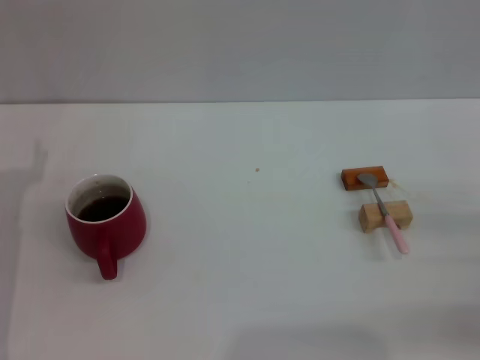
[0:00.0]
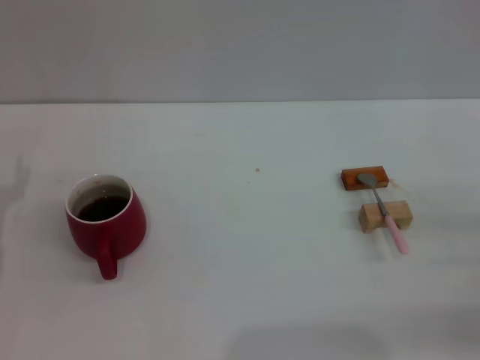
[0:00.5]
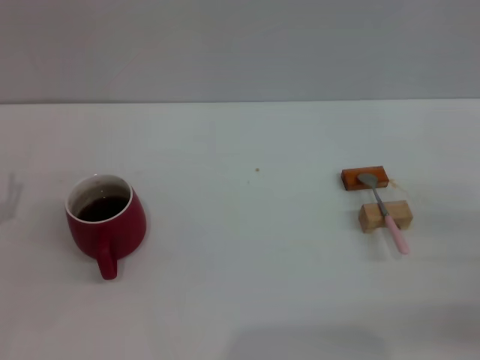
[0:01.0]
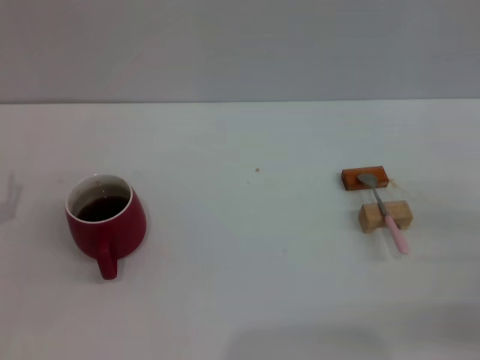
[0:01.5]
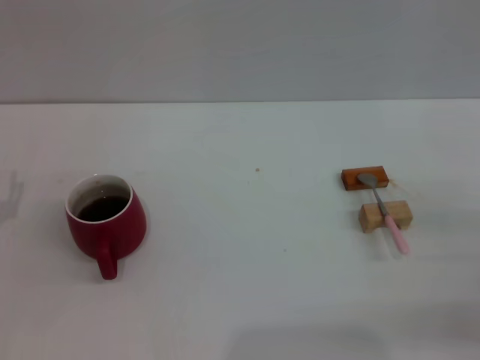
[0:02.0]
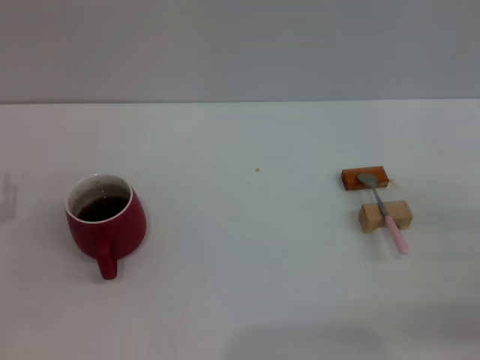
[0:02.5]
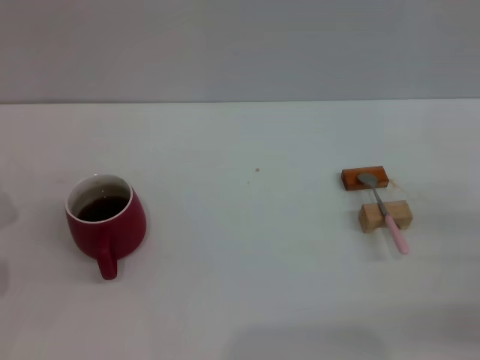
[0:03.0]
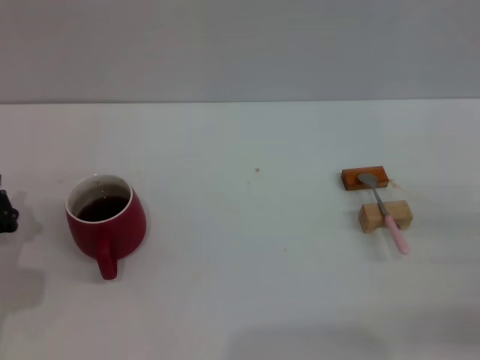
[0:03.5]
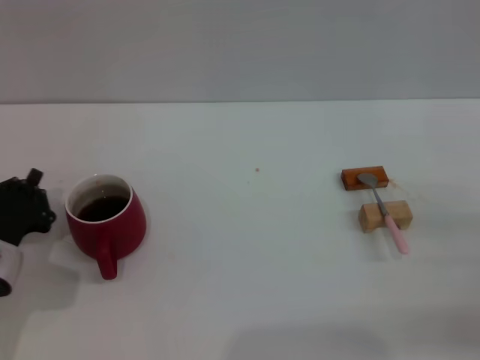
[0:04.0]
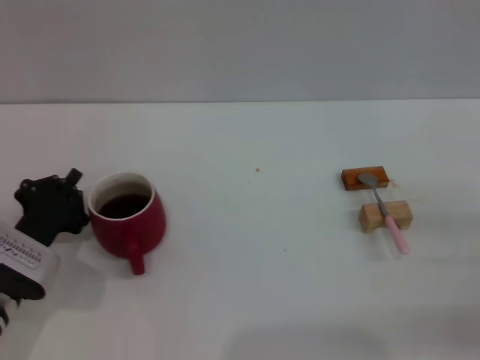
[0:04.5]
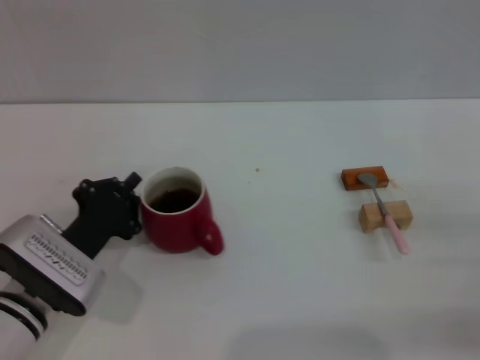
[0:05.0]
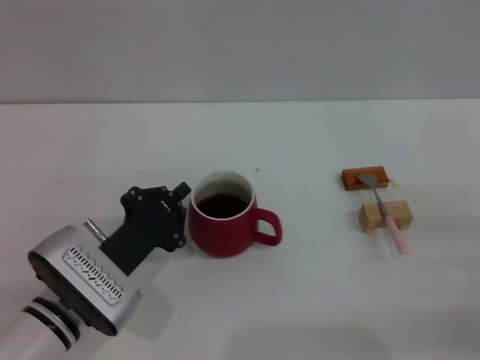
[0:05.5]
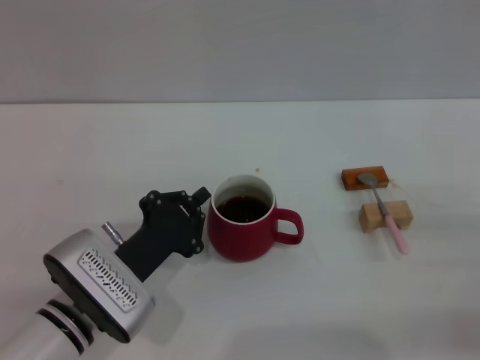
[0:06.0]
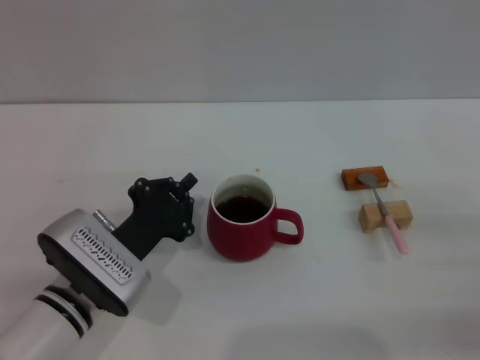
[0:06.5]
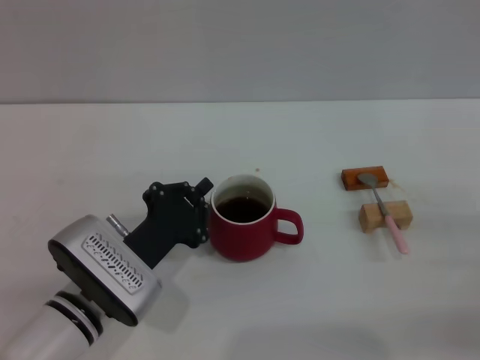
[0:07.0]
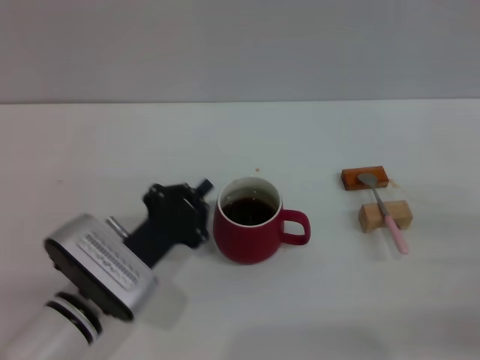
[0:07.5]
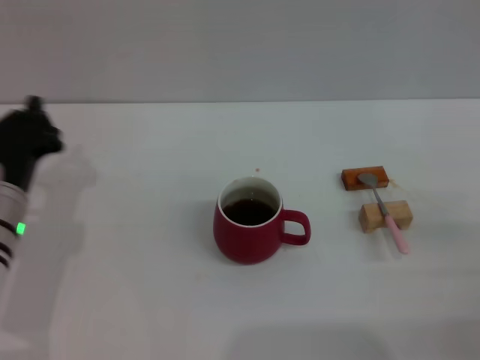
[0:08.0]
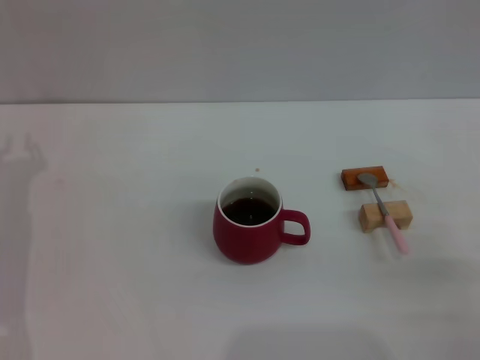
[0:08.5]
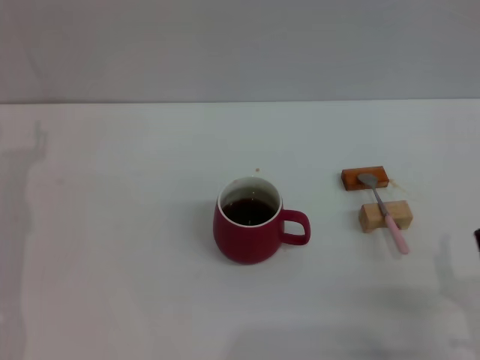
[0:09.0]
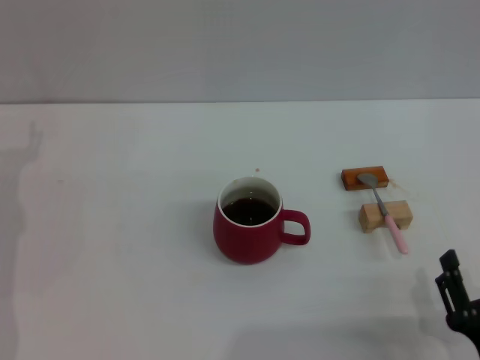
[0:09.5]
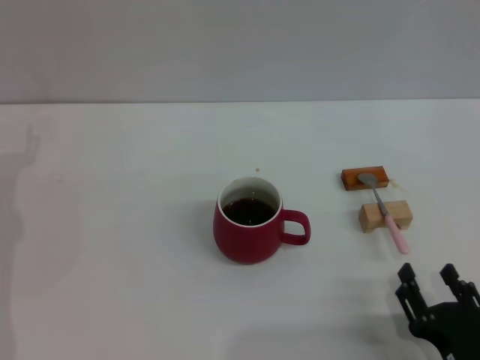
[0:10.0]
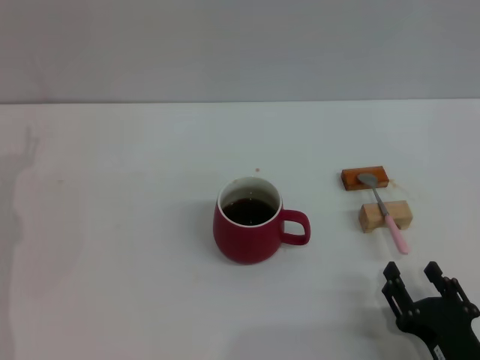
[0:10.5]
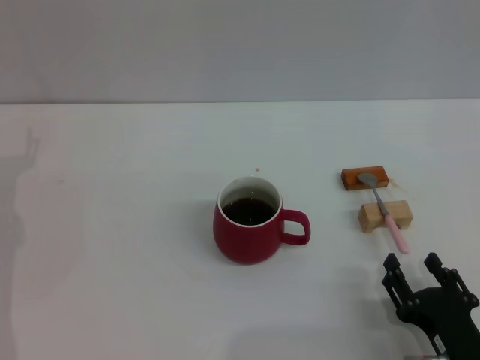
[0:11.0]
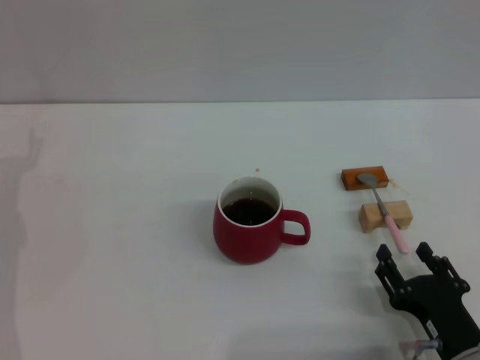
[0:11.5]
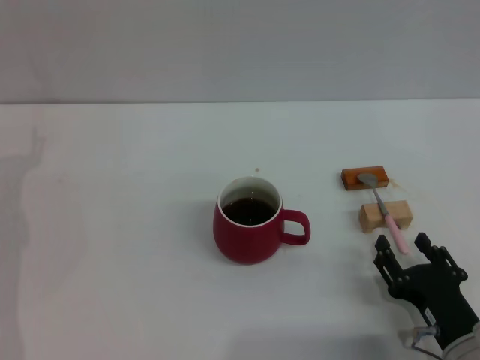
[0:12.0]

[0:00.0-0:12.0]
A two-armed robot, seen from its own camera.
Task of the whole recording: Move the red cup to the center, lift the pink spoon, stir it three times in the cup, and put the spoon into the cup.
Step, 0:00.0 to 0:08.0: Move the cup with coffee to the center of view with the left gripper.
0:02.0 to 0:04.0: The left gripper closes.
0:04.0 to 0:06.0: The left gripper travels to the right by about 10 cm.
0:06.0 to 0:08.0: The left gripper shifts roughly 10 cm to the left and forward.
0:08.0 to 0:10.0: The right gripper moves to the left, backward and downward, some 20 cm. The left gripper shifts about 5 cm to the left, and opens up.
0:10.0 to 0:12.0: The right gripper goes roughly 5 cm forward.

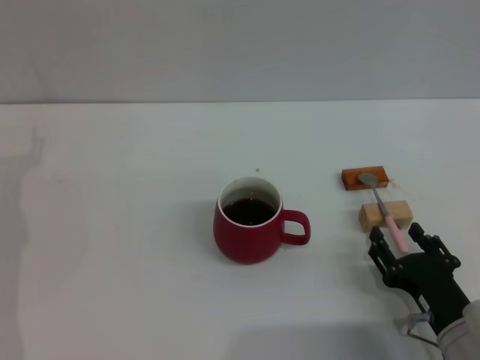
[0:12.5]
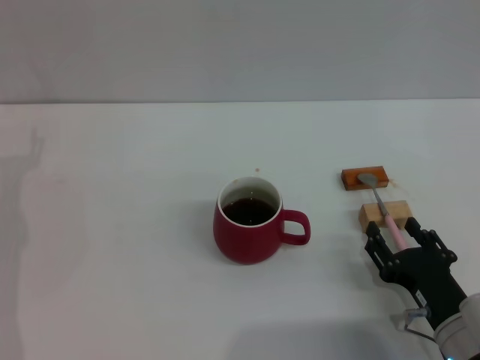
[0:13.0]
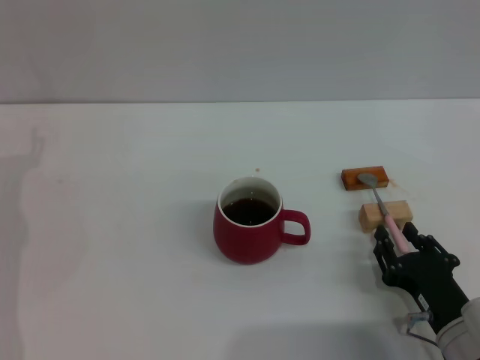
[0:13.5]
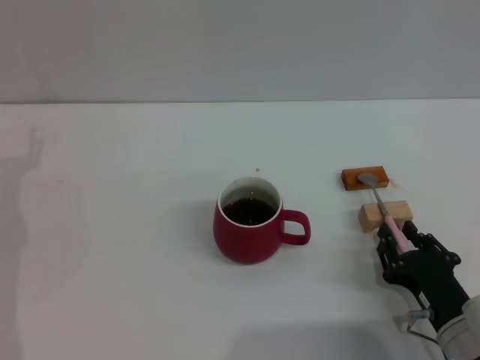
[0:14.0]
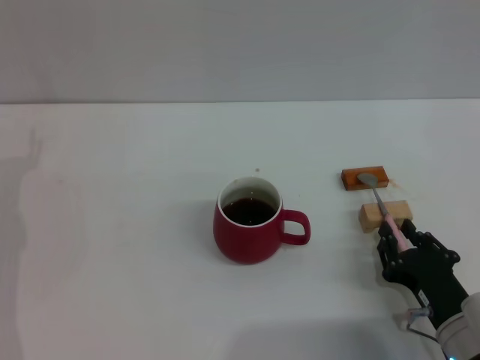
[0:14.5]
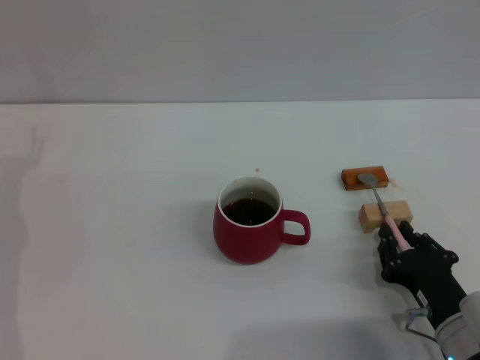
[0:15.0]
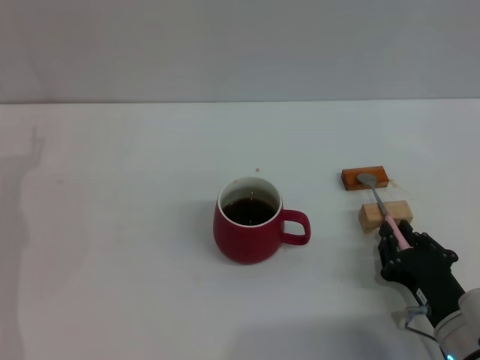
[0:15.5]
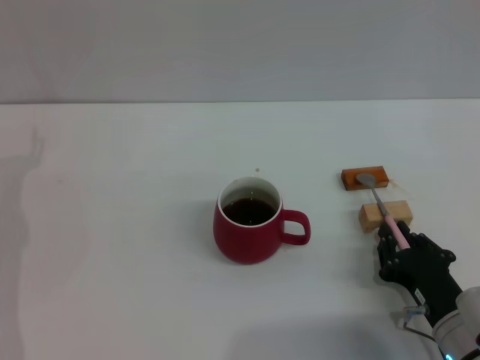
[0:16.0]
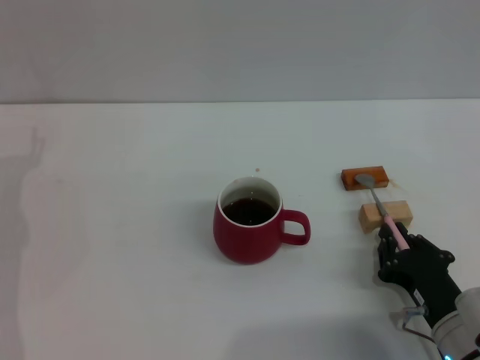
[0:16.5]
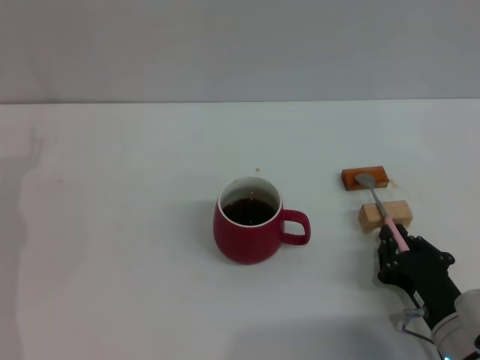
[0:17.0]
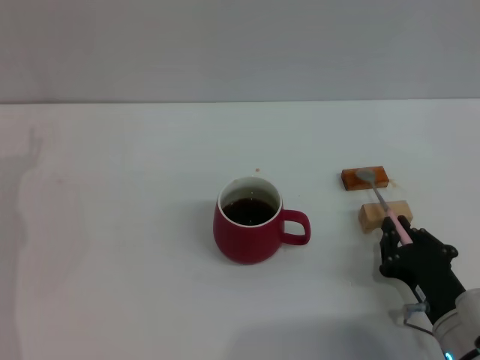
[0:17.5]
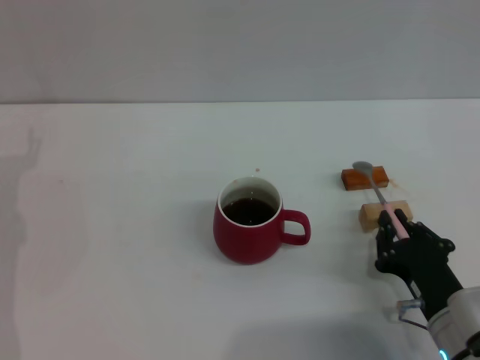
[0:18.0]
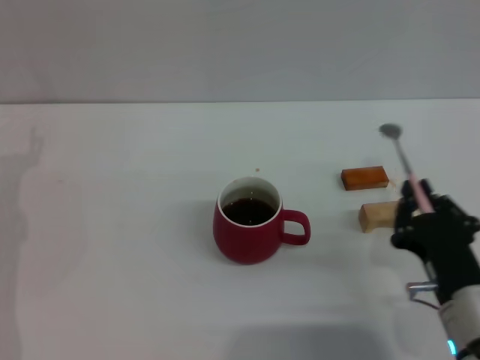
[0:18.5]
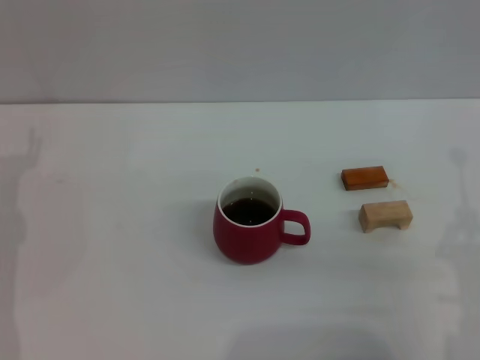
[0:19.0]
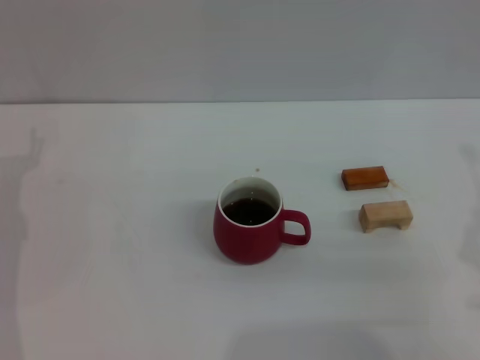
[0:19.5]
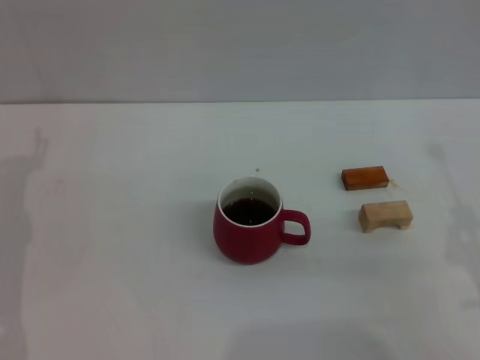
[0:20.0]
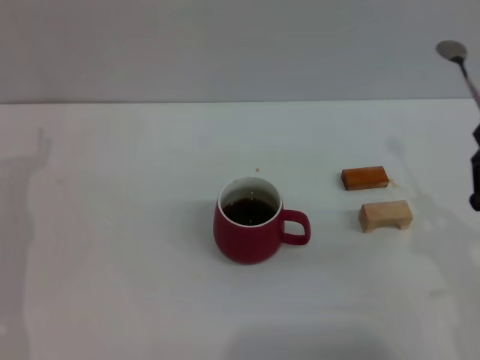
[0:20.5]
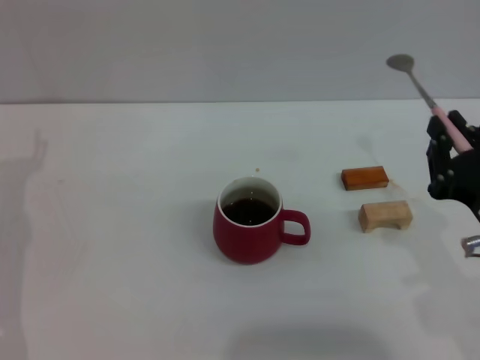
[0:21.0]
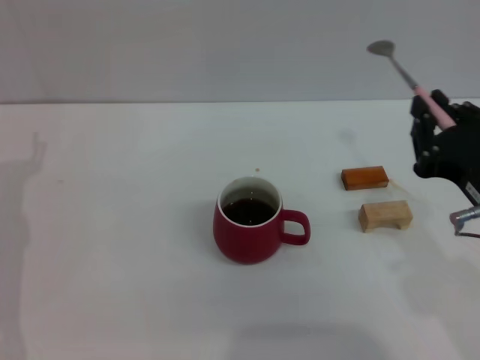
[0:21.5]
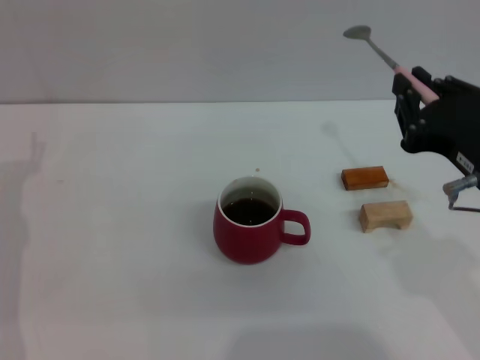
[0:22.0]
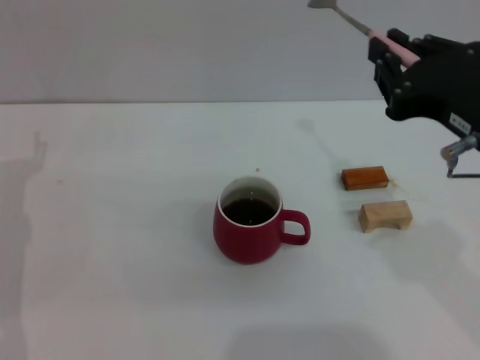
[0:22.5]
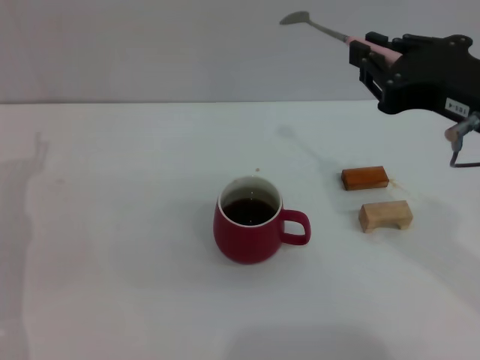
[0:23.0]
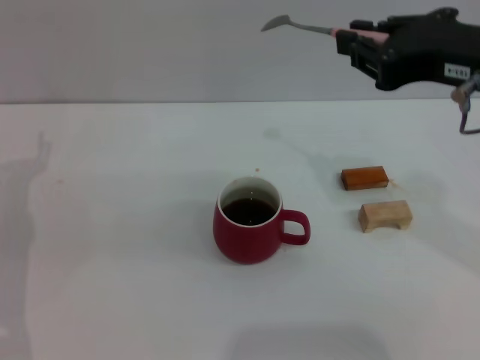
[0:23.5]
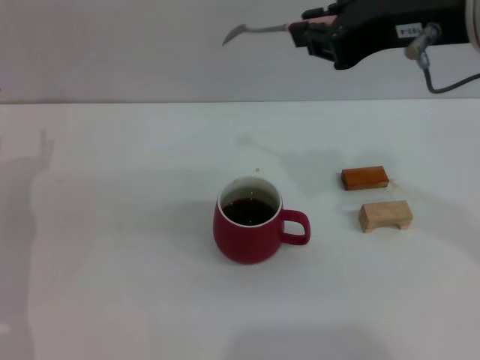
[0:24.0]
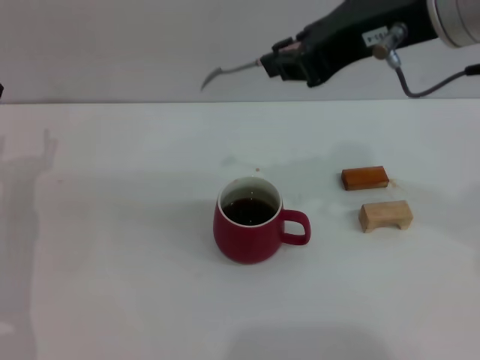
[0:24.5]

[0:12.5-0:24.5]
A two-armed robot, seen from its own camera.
Task of the whole recording: Move the red cup to the center, lift the pink spoon, stir it three times in the cup, and put the spoon into the cup.
Step, 0:12.5 to 0:19.5: Pick up the spoon with the right gripper.
0:12.5 to 0:14.5: The right gripper closes.
0:14.5 to 0:16.5: Both grippers stay about where they are.
0:16.5 to 0:18.5: The right gripper moves approximately 5 cm.
0:18.5 to 0:20.5: The right gripper heads upward and to the right, covering about 10 cm.
0:20.5 to 0:22.5: The right gripper moves upward and to the left, roughly 15 cm.
0:22.5 to 0:24.5: The right gripper goes about 15 cm upward, forward and to the left.

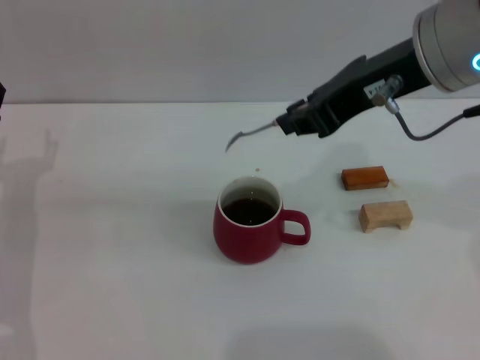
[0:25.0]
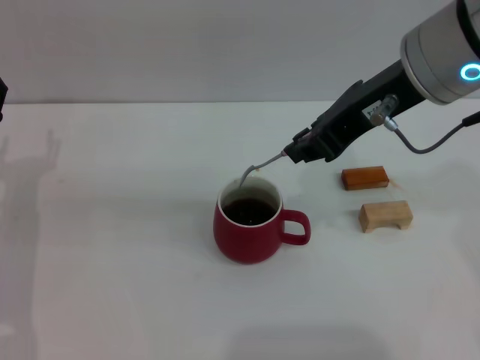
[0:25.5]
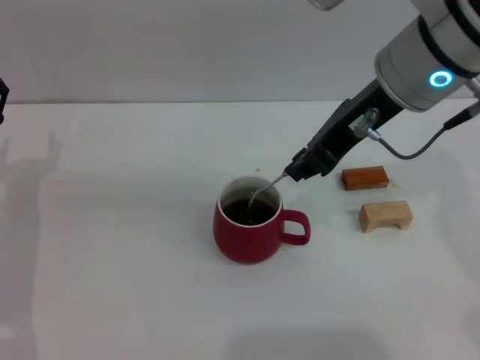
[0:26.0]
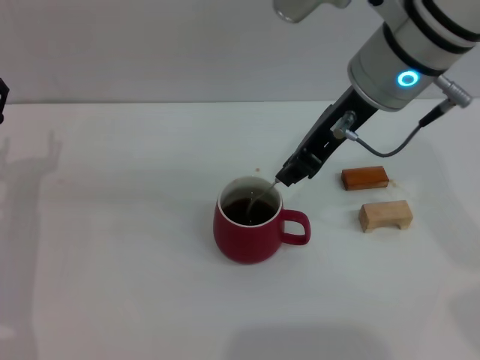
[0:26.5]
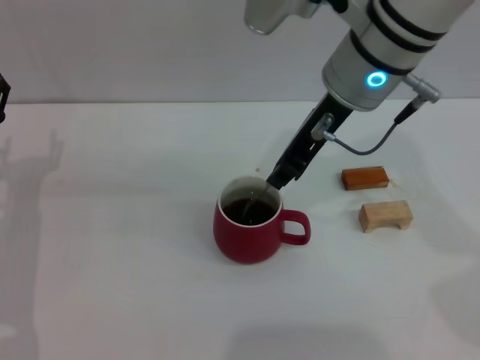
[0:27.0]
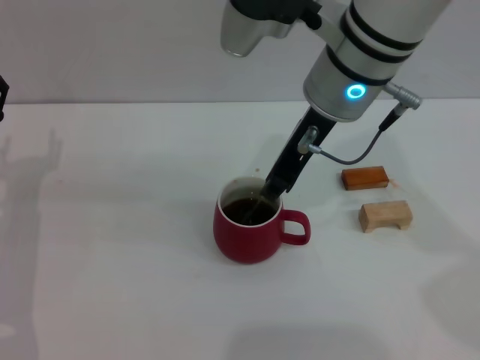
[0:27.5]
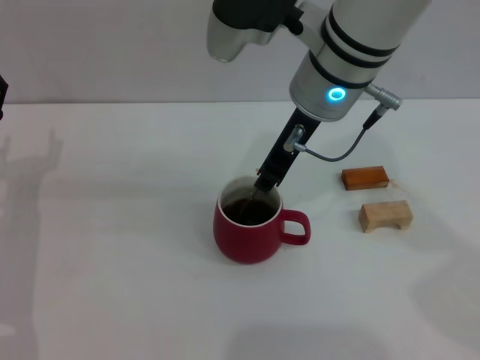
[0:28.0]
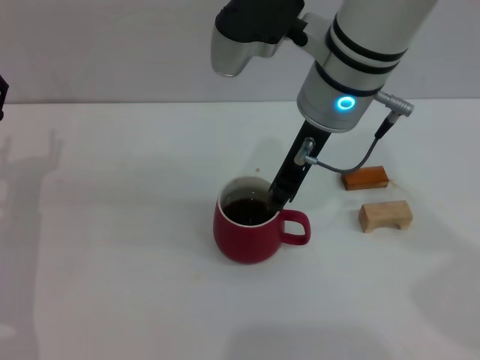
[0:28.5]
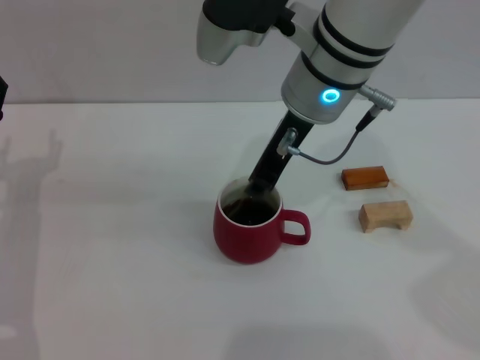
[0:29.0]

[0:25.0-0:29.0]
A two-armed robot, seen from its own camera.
Task of the whole recording: Move the red cup to the center, lift the pink spoon, stir it three times in the cup, and put the spoon into the cup.
Step, 0:25.0 to 0:29.0: Stir the coffee in the cup with the right gripper.
0:25.0 to 0:27.0: The right gripper shifts approximately 10 cm forward, to the left and downward.
0:27.0 to 0:29.0: There are only small adjustments of the grippers.
